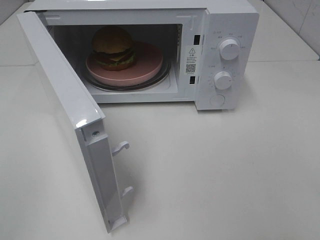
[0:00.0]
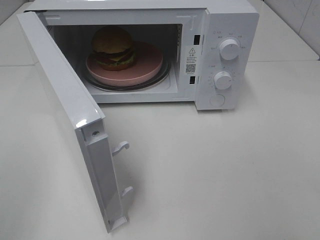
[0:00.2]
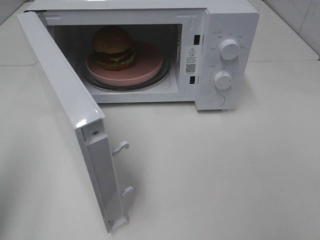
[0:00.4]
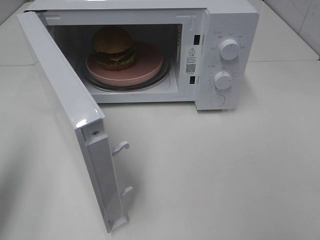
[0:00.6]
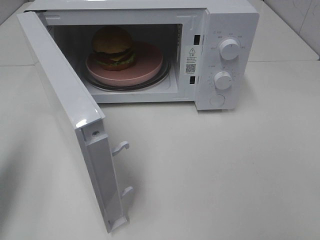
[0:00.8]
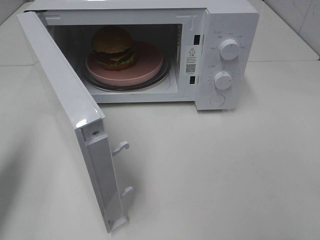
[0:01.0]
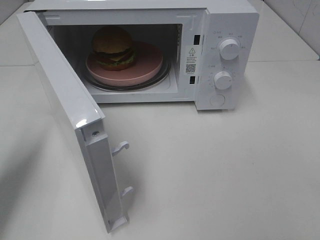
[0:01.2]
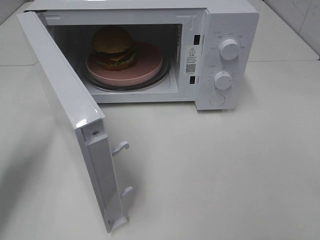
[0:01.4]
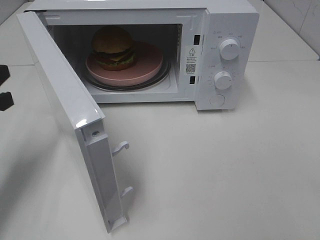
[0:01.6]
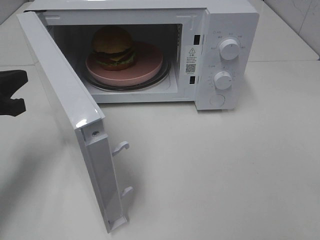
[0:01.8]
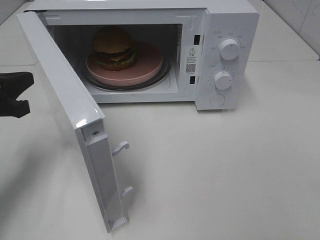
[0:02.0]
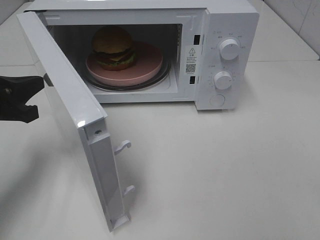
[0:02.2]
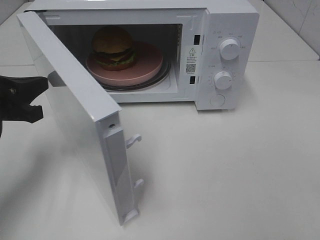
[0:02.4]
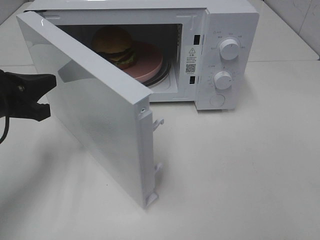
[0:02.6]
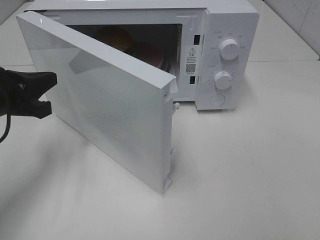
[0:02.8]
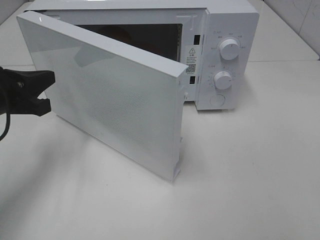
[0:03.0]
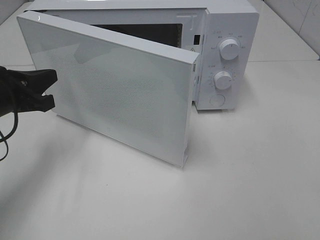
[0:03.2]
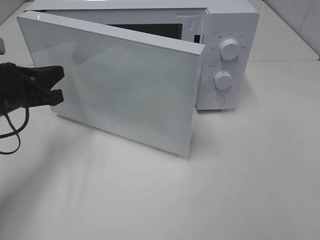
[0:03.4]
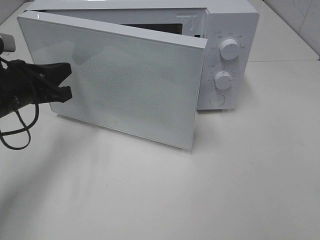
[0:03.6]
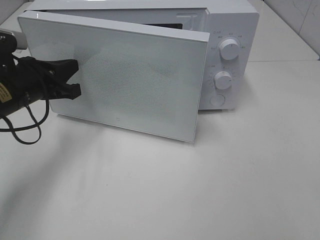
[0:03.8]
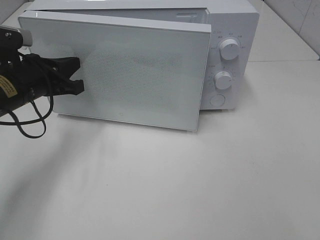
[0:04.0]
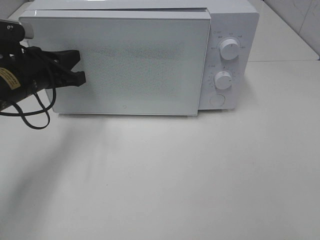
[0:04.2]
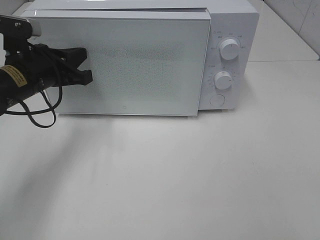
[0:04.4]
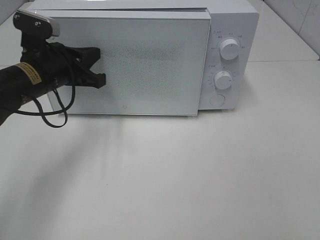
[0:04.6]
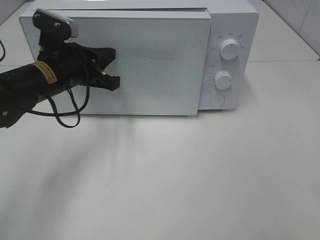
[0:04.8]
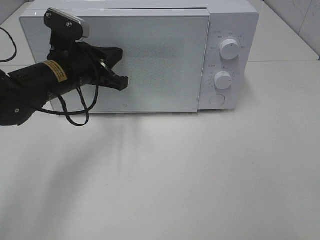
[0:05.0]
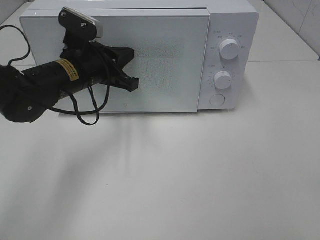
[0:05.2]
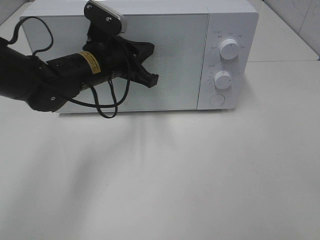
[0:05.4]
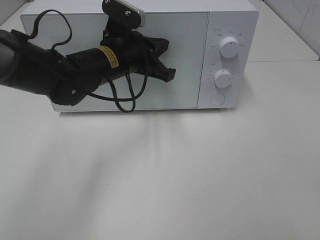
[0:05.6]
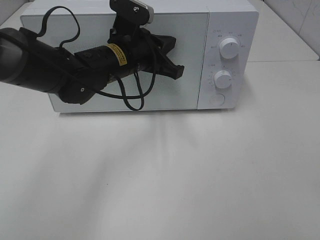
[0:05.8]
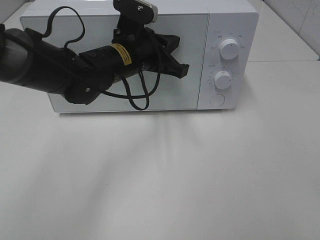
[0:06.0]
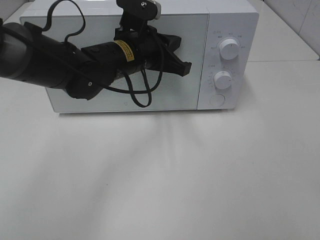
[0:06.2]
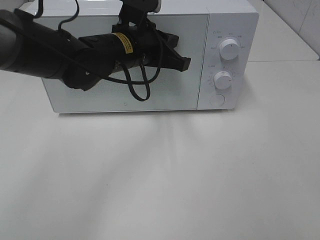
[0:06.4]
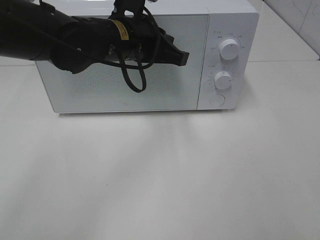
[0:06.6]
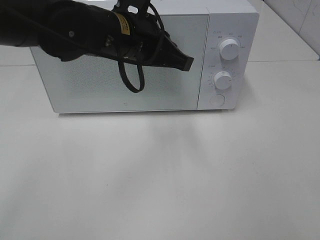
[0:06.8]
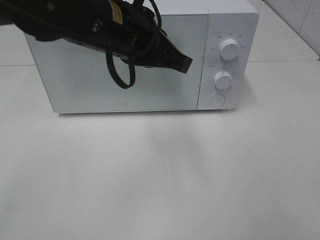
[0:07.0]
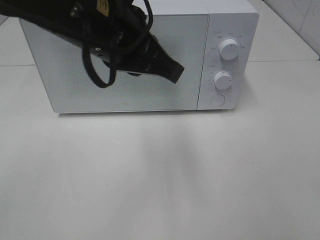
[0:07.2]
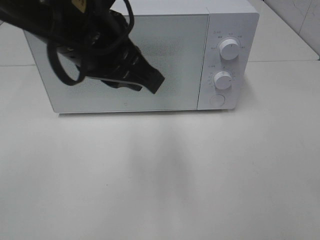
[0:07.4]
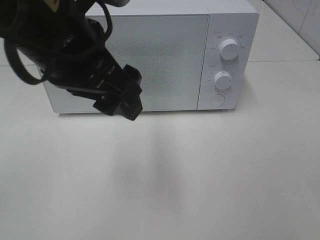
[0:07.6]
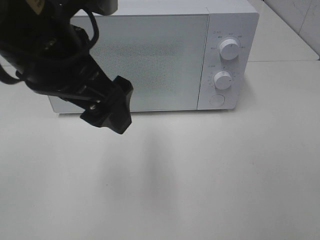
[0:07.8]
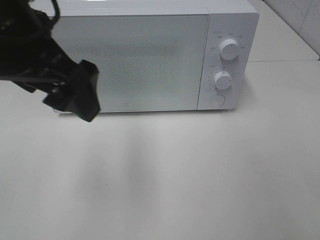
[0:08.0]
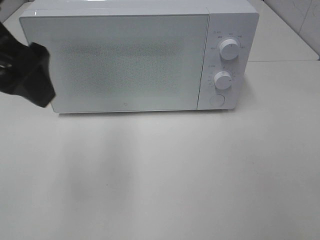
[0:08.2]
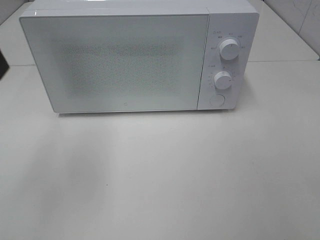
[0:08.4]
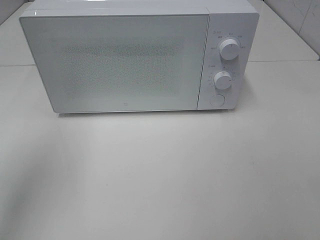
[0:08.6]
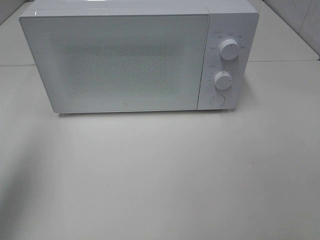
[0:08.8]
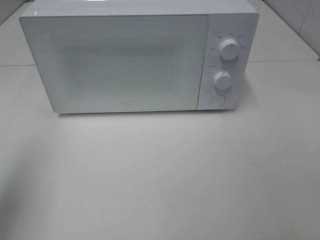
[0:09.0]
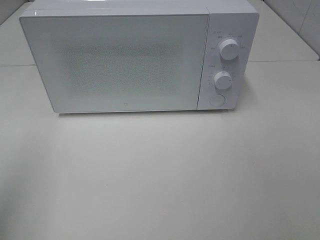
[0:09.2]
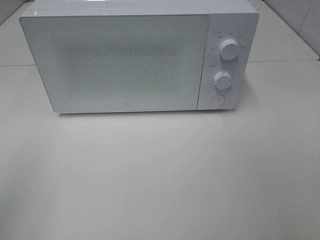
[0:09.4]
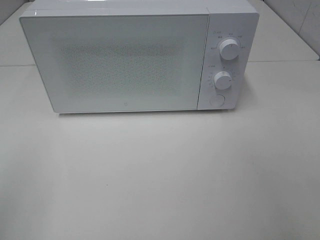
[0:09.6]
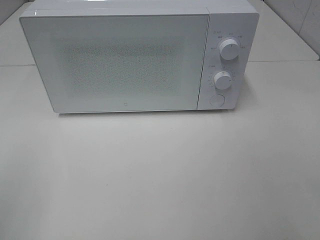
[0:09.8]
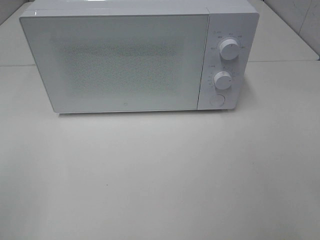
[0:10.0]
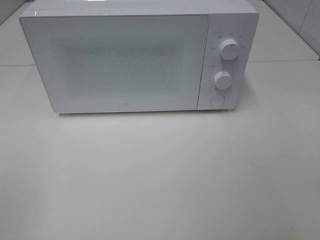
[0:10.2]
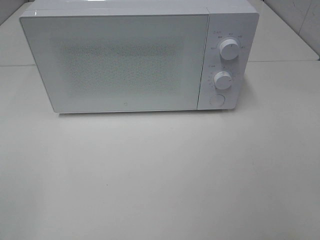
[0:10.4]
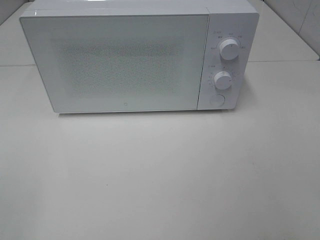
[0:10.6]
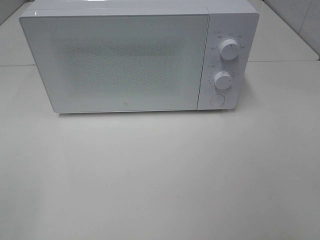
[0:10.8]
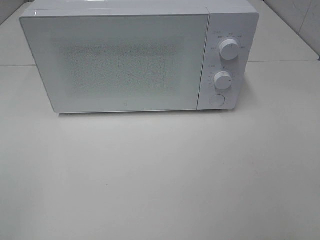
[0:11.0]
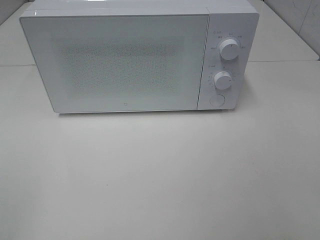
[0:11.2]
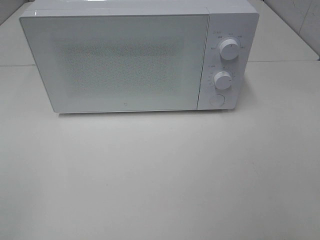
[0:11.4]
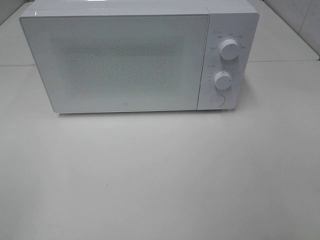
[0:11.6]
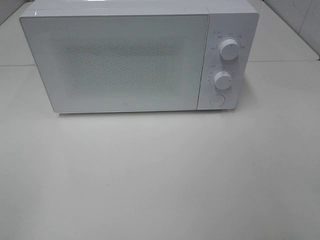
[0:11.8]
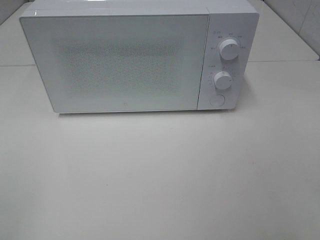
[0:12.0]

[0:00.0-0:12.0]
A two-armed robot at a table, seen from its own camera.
Task of the whole recording: Heat the burger.
Step, 0:00.0 to 0:05.2: Left hand: close the microwave door.
0:00.0 to 0:01.6: The left gripper goes approximately 25 cm forward and downward, and closes.
0:03.0 to 0:04.4: The left gripper shifts some 5 cm forward.
0:04.4 to 0:06.0: The left gripper is displaced to the right by roughly 15 cm.
0:06.0 to 0:07.6: The left gripper is displaced backward and upward by about 20 cm, and opens its fingers.
0:07.6 to 0:09.0: The left gripper is displaced to the left by about 20 cm.
0:09.0 to 0:10.4: The left gripper heads backward, covering approximately 15 cm.

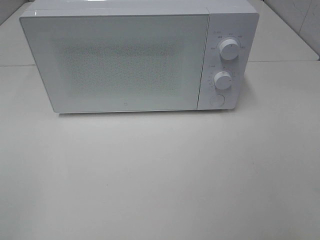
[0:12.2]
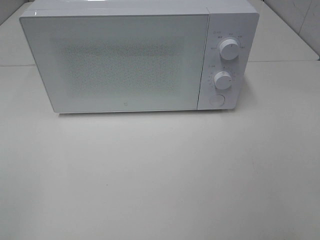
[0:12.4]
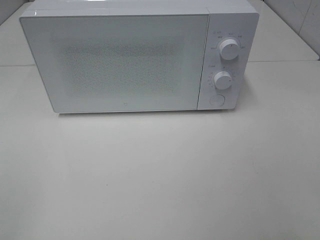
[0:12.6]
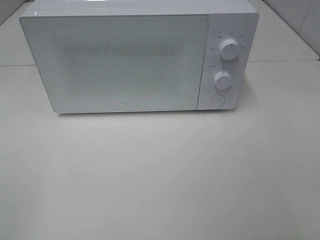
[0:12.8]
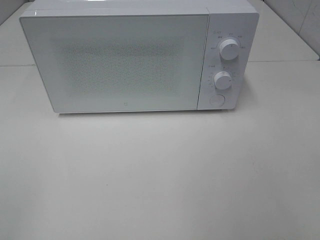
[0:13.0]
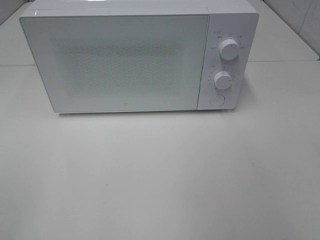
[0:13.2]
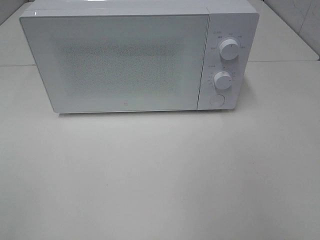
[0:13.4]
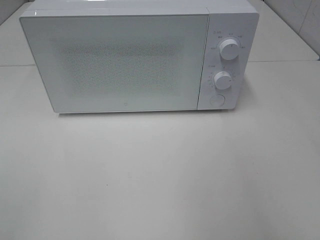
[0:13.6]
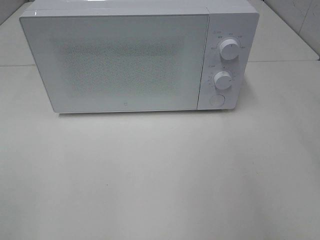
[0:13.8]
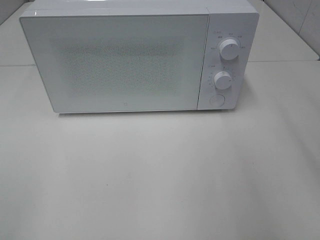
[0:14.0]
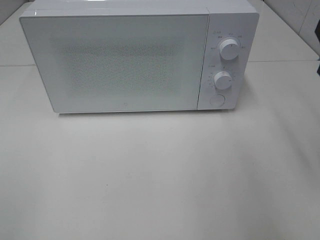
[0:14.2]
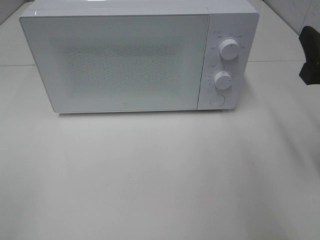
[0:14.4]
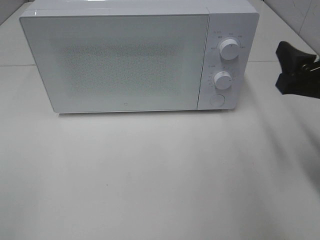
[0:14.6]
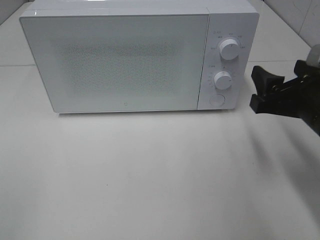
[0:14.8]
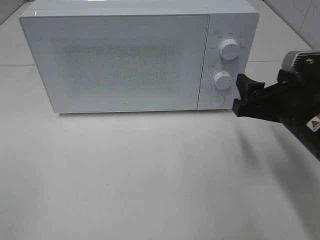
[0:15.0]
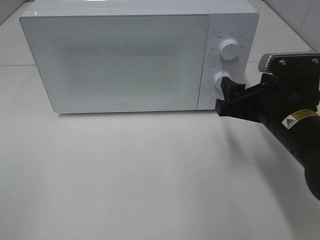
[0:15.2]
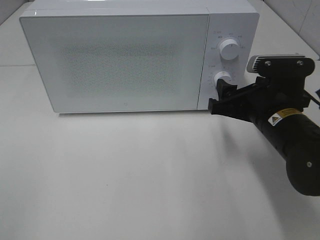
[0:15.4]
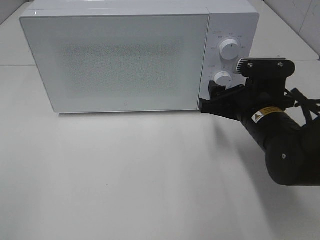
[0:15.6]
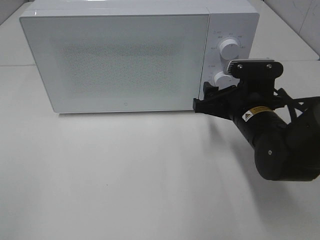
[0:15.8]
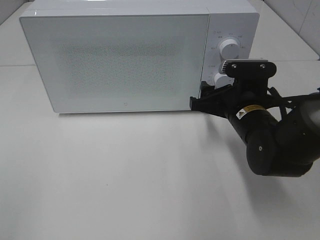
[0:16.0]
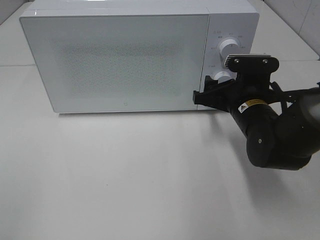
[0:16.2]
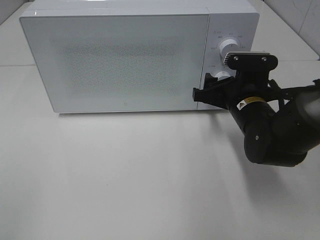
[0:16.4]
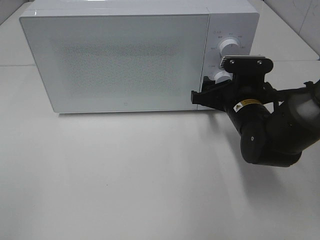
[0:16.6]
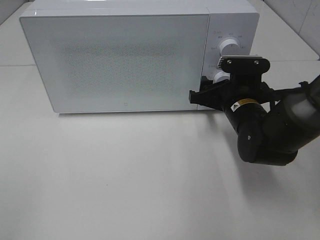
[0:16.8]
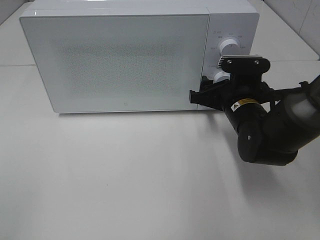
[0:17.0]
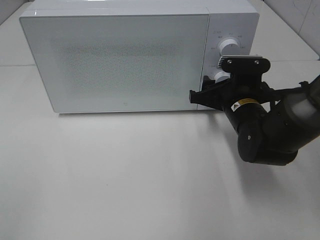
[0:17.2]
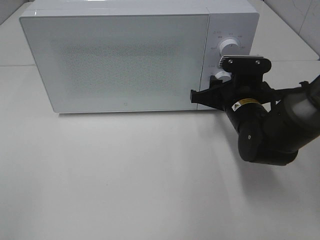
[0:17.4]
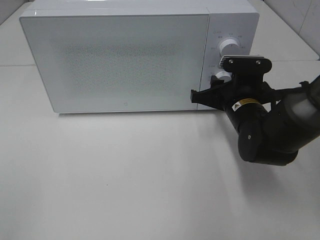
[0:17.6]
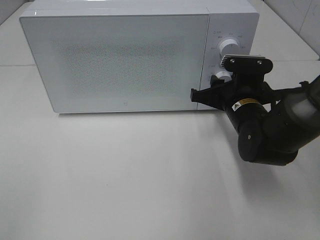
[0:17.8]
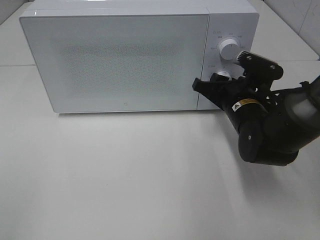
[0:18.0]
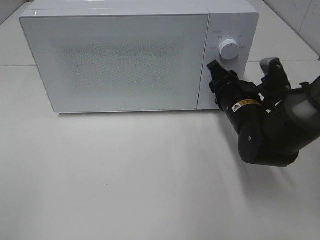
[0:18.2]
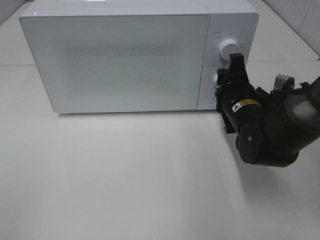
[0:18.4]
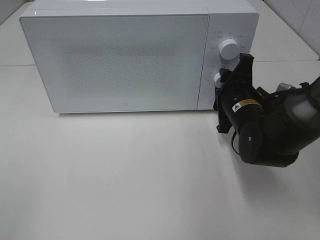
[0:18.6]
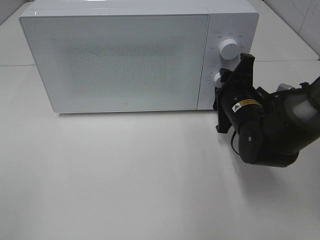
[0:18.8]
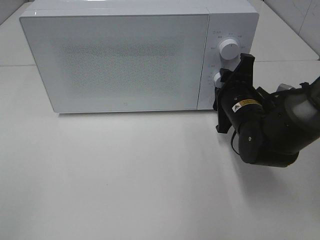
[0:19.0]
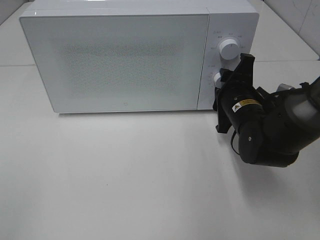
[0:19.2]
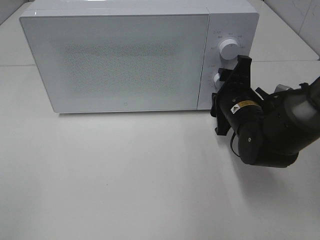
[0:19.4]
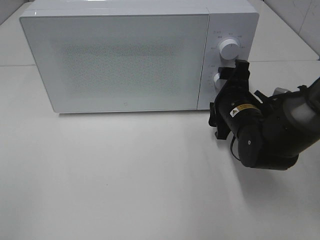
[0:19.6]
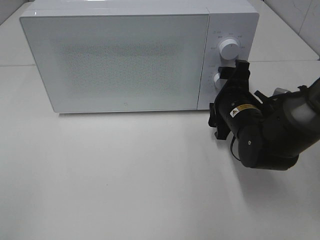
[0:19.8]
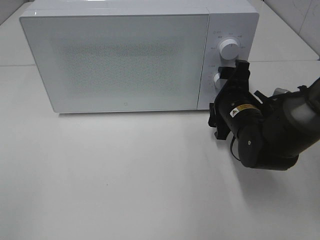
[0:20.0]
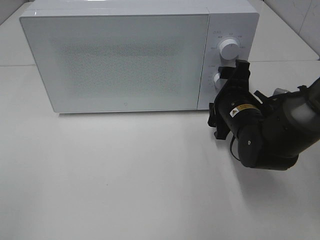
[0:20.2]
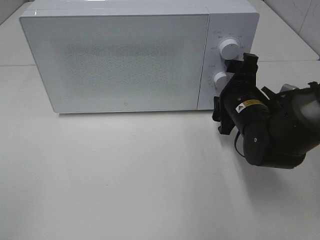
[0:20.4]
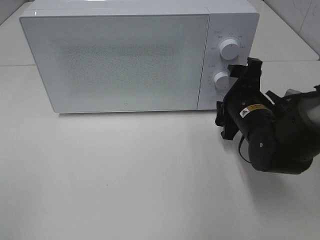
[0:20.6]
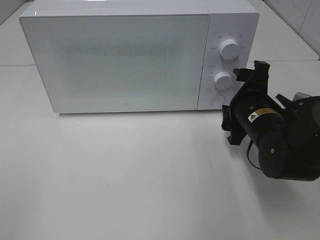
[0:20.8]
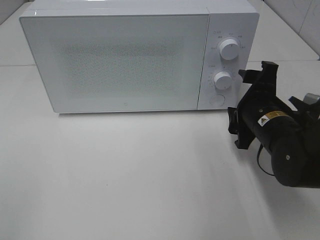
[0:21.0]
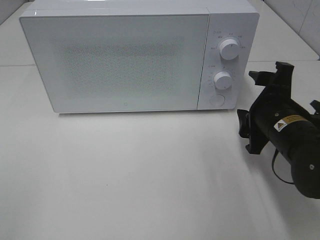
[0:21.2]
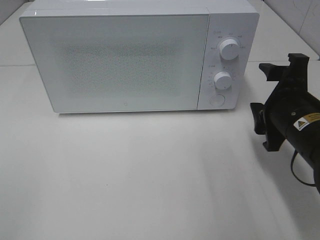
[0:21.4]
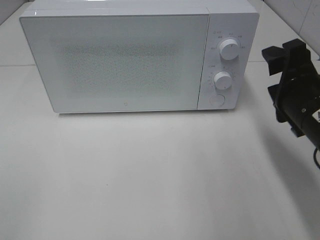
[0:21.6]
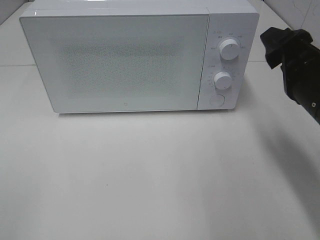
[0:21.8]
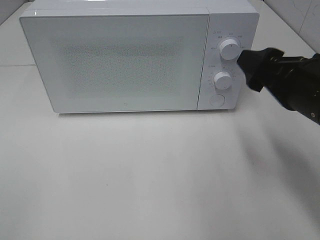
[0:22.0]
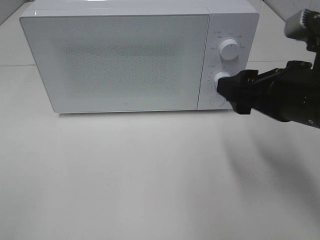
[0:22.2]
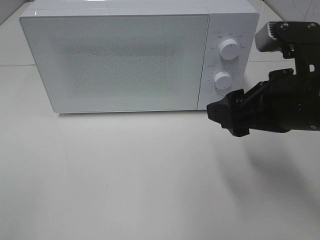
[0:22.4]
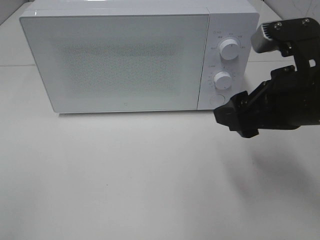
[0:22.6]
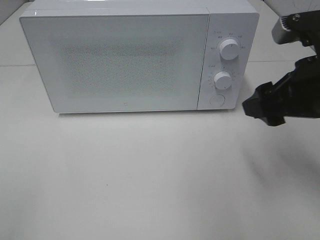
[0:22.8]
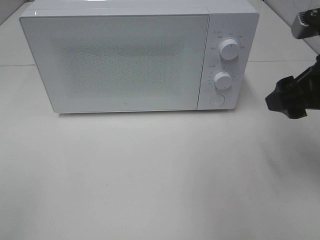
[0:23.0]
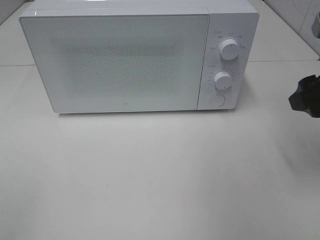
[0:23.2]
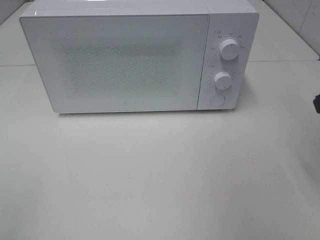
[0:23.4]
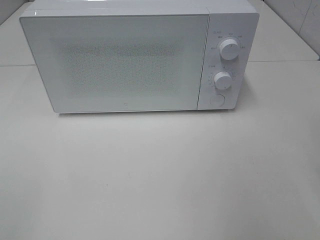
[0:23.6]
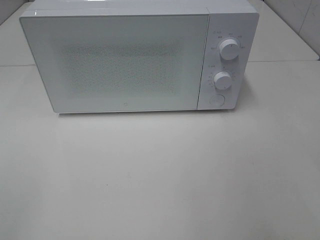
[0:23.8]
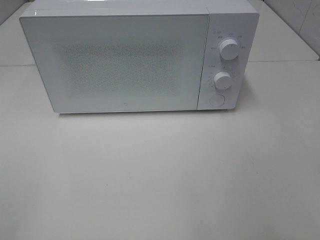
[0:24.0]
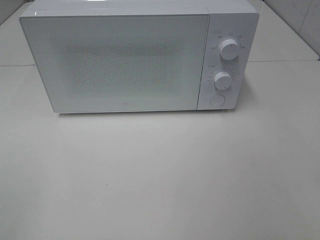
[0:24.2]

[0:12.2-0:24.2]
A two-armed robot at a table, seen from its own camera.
Task of the whole recording: Heat the burger.
Step, 0:12.2 to 0:19.2: Right hand: twist timer button.
0:13.8 to 0:15.2: The right gripper goes roughly 20 cm downward, forward and to the left.
0:15.2 to 0:16.6: The right gripper moves forward, approximately 10 cm.
0:18.2 to 0:19.8: The right gripper opens its fingers.
0:19.8 to 0:21.2: The right gripper moves backward, some 5 cm.
0:21.2 to 0:22.6: The right gripper is displaced upward by roughly 10 cm.
0:22.6 to 0:24.2: The right gripper heads backward and to the right, covering about 20 cm.
